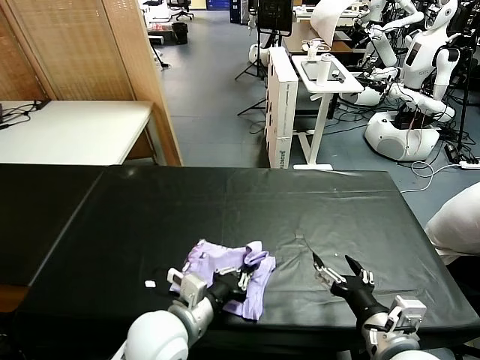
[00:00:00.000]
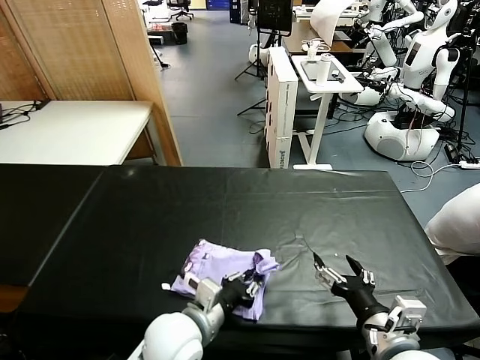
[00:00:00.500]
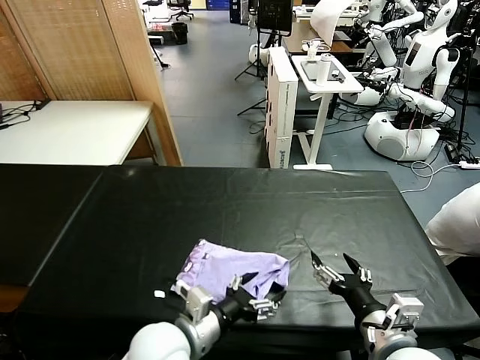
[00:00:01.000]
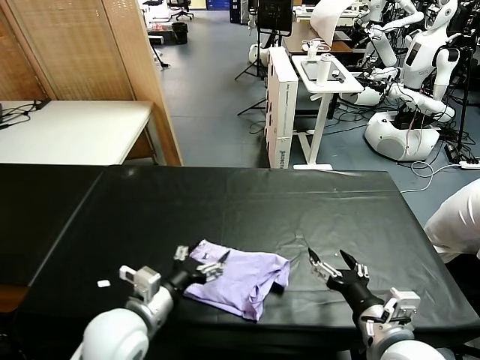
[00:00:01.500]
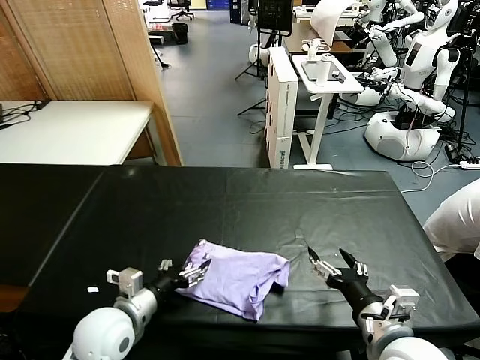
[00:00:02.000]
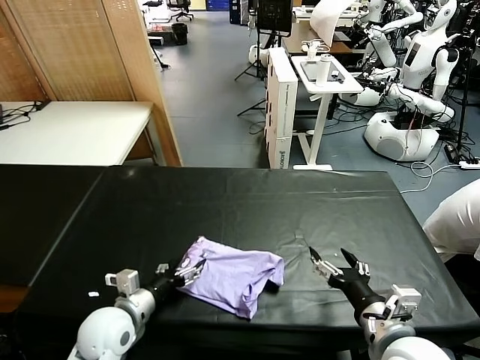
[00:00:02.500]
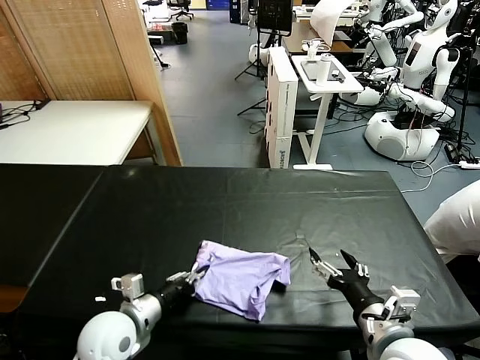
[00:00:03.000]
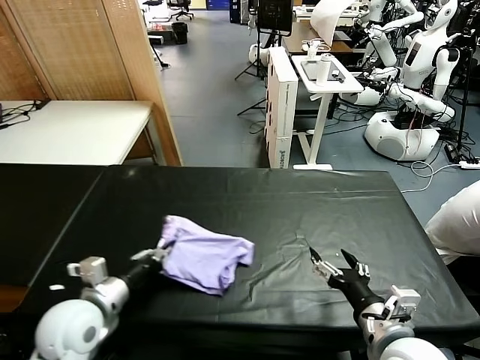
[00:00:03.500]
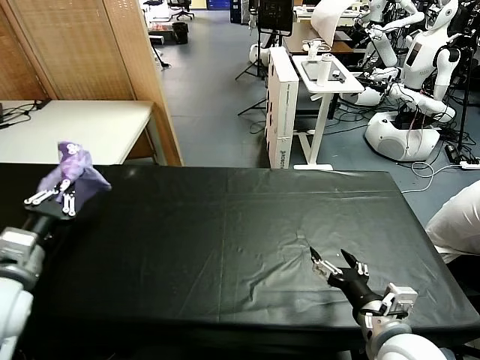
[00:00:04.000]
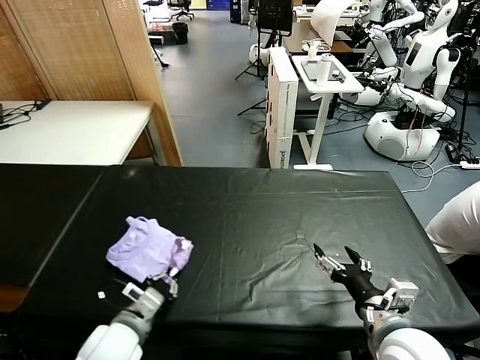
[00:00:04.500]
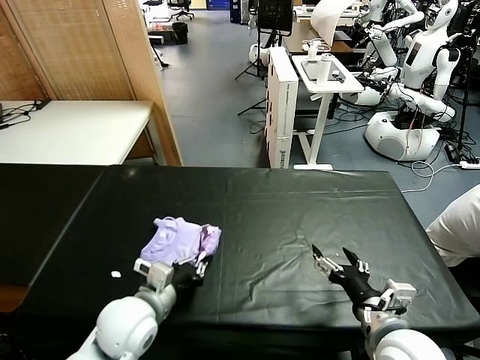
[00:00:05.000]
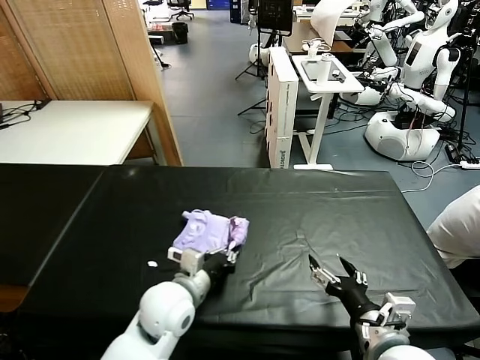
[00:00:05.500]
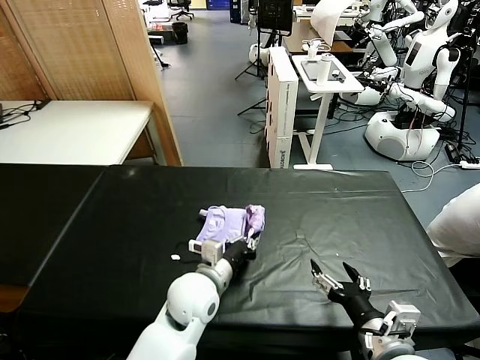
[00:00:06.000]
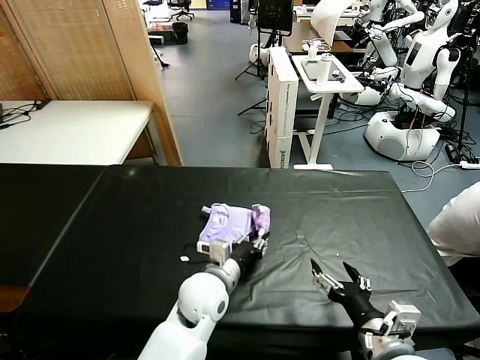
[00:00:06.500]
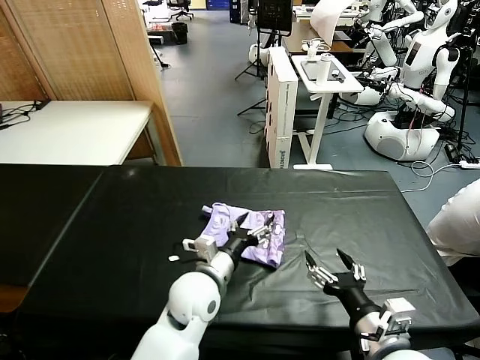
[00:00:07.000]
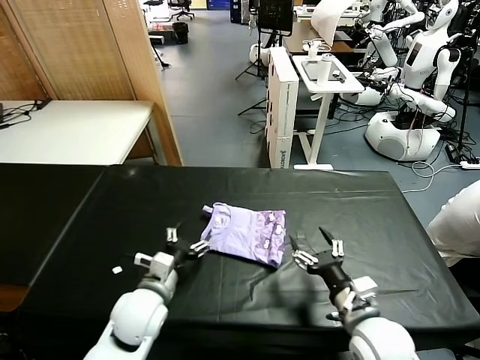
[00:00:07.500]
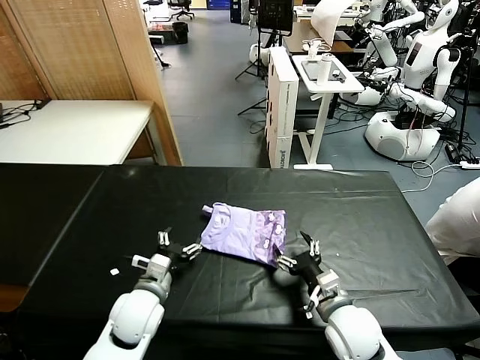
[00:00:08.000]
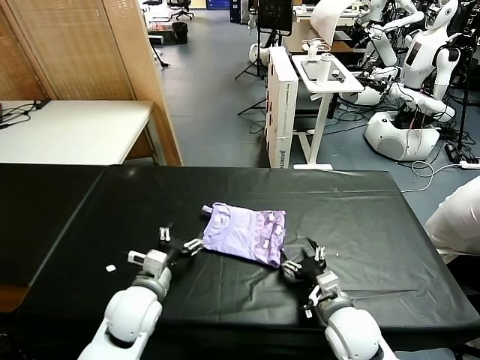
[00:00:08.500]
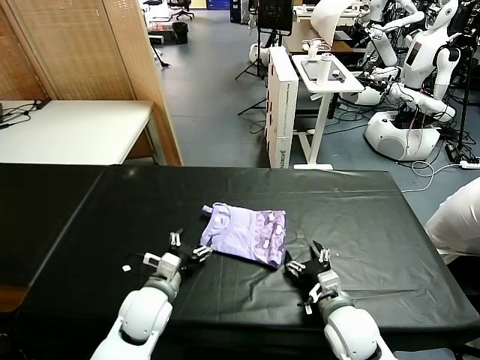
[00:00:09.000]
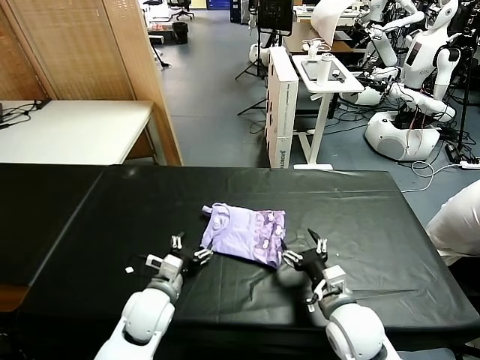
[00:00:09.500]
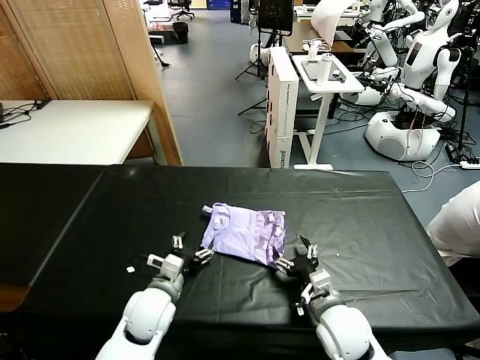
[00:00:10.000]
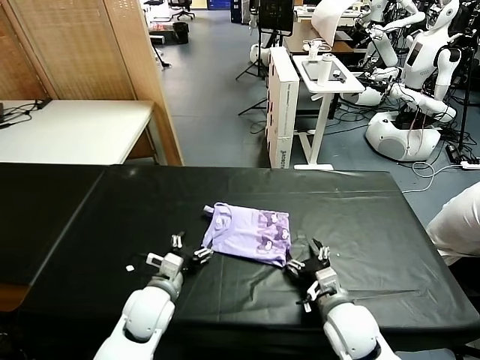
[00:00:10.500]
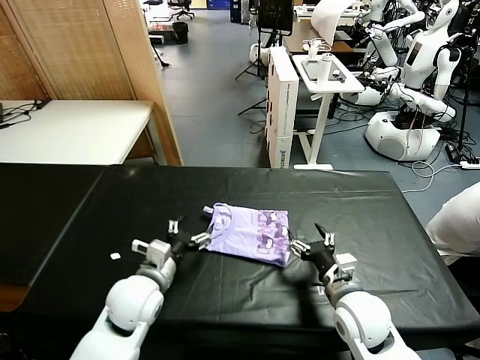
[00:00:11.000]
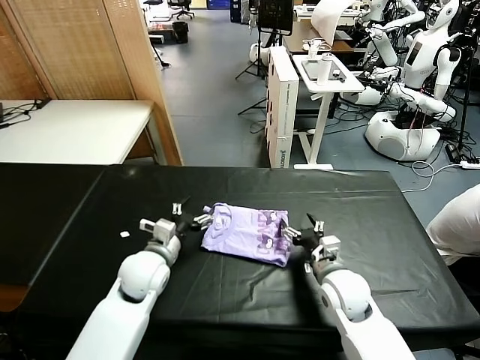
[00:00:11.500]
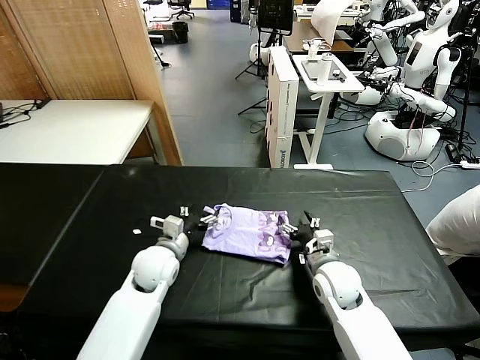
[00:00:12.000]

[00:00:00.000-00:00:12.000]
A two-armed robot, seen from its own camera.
Task of the whole recording: fold and organize the clothes.
00:00:00.000 to 00:00:02.000: The left gripper shifts approximately 10 cm to the left, and opens.
00:00:02.000 to 00:00:04.000: The left gripper travels upward and to the left by approximately 20 cm, and closes.
00:00:04.000 to 00:00:06.000: The left gripper goes about 30 cm to the right and downward.
00:00:06.000 to 00:00:08.000: The right gripper shifts about 15 cm forward and downward, while the left gripper shifts about 10 cm to the left, and opens its fingers.
00:00:08.000 to 00:00:10.000: The grippers move only a little.
00:00:10.000 to 00:00:12.000: Both grippers travel together forward, about 10 cm.

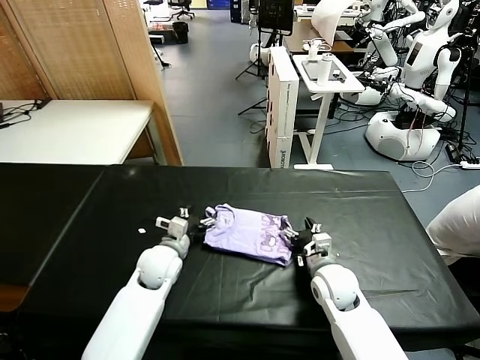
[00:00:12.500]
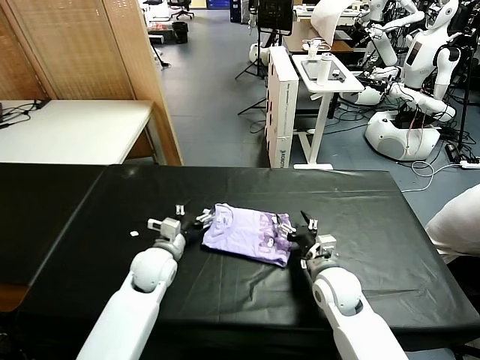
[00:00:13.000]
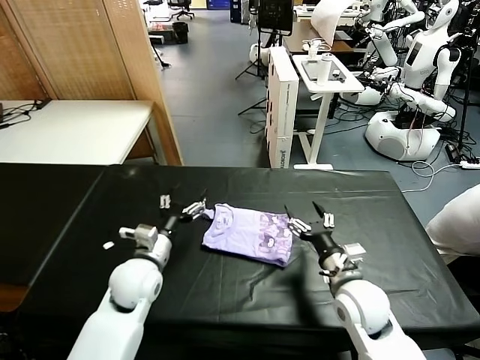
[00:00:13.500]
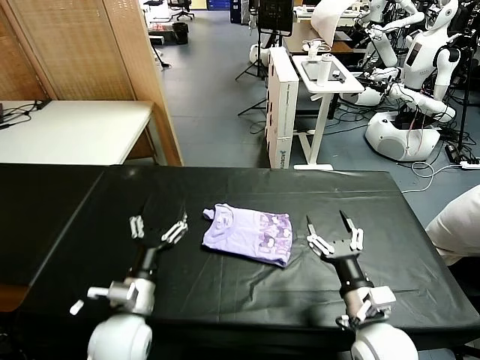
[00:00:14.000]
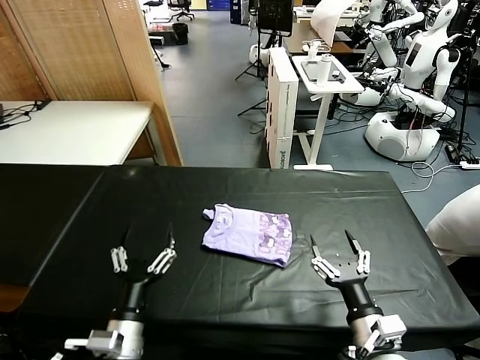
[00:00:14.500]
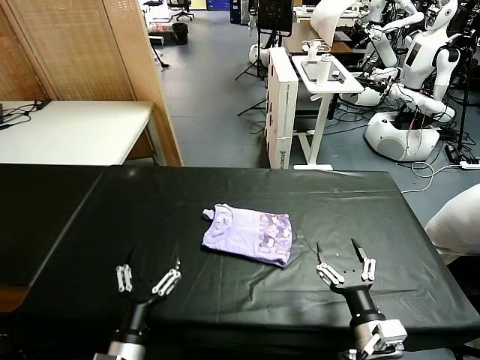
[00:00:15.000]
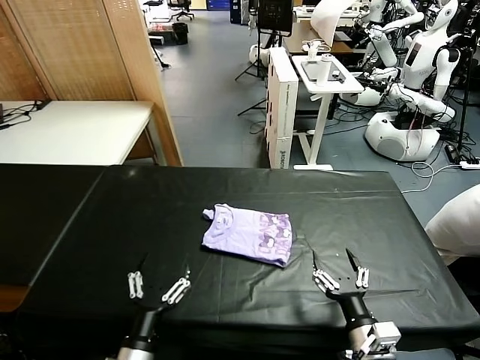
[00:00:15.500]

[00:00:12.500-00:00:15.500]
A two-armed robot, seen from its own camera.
Task of the whole recording: fold and organize the clothes.
00:00:12.500 to 00:00:14.000: The right gripper goes about 15 cm backward and upward. Meanwhile the left gripper goes roughly 15 cm backward.
00:00:14.000 to 00:00:15.500: The right gripper moves backward, approximately 5 cm. Meanwhile the left gripper heads backward, covering roughly 15 cm.

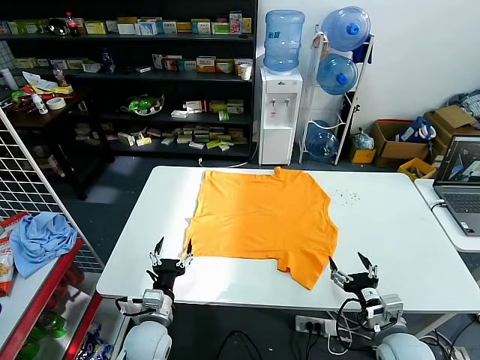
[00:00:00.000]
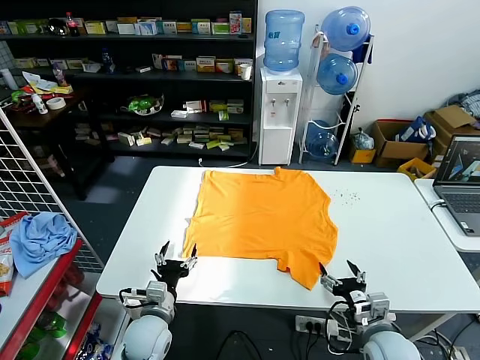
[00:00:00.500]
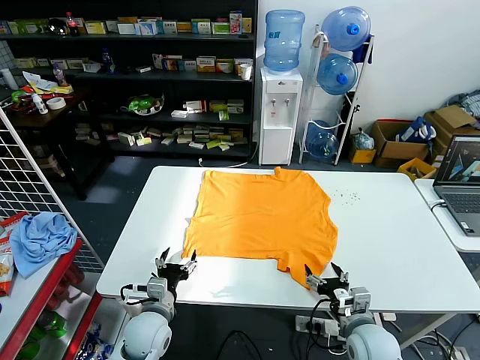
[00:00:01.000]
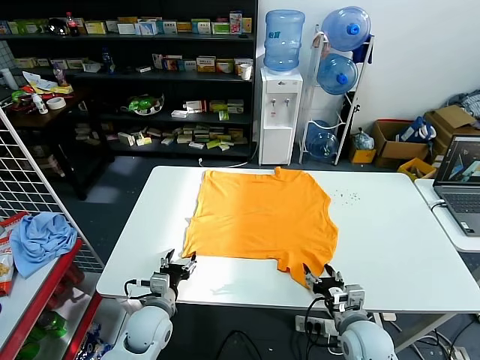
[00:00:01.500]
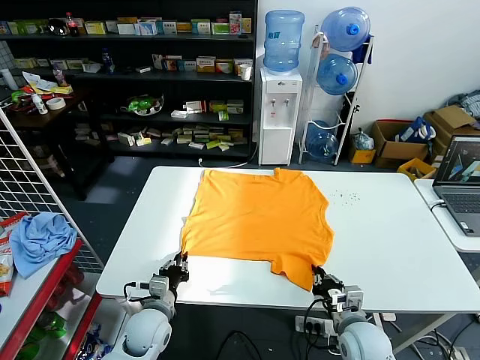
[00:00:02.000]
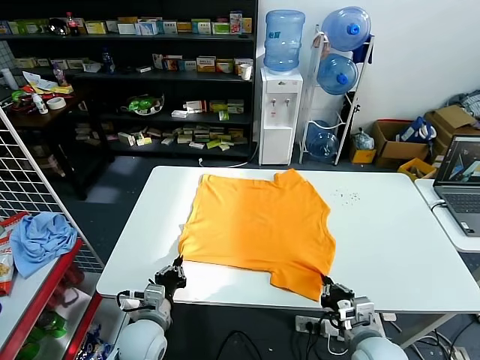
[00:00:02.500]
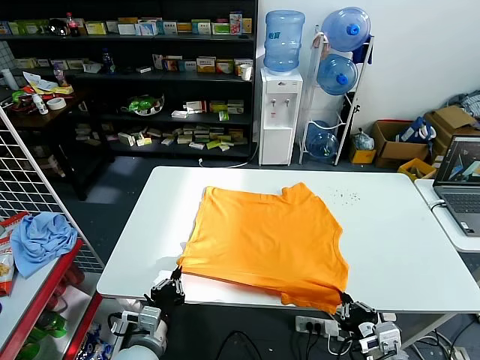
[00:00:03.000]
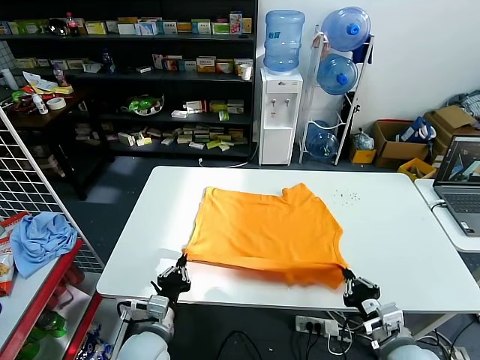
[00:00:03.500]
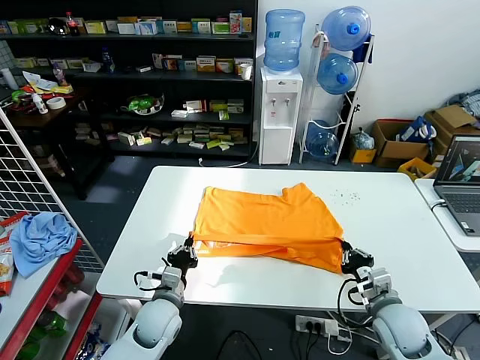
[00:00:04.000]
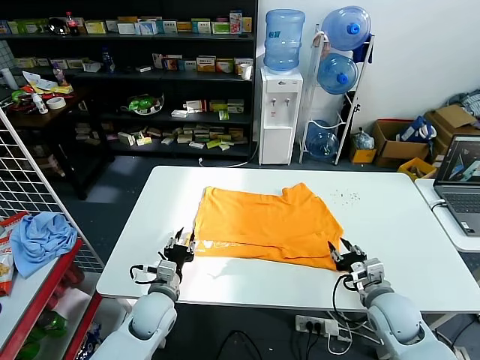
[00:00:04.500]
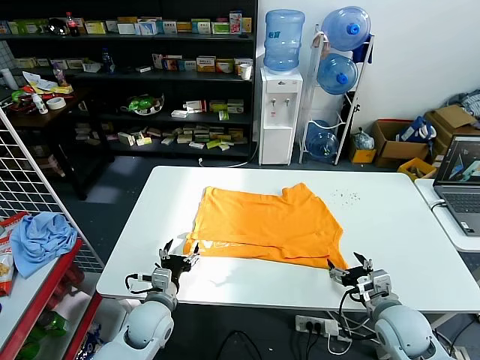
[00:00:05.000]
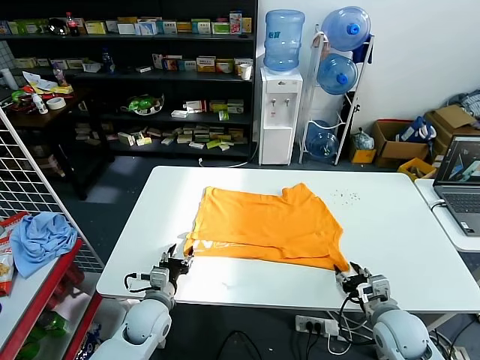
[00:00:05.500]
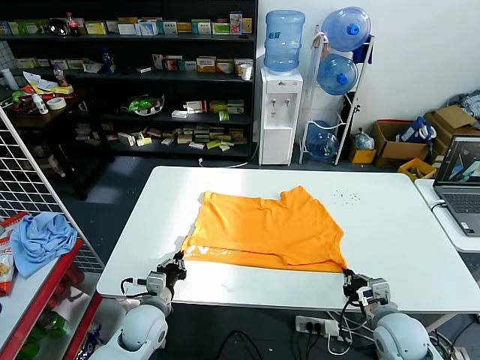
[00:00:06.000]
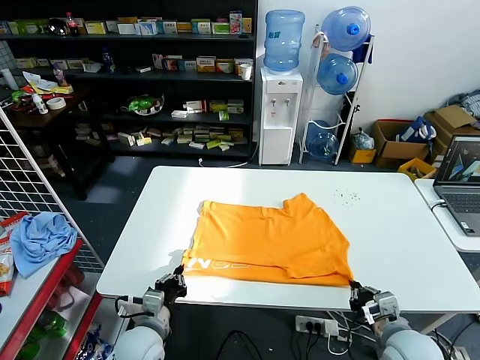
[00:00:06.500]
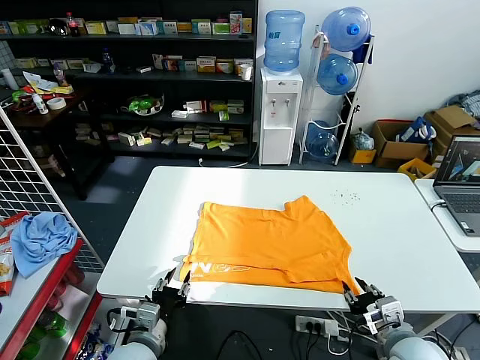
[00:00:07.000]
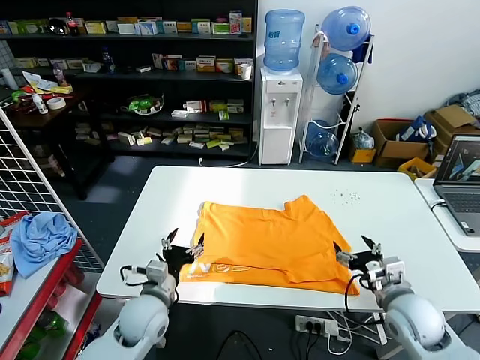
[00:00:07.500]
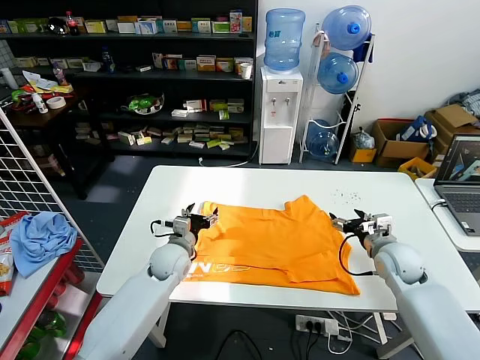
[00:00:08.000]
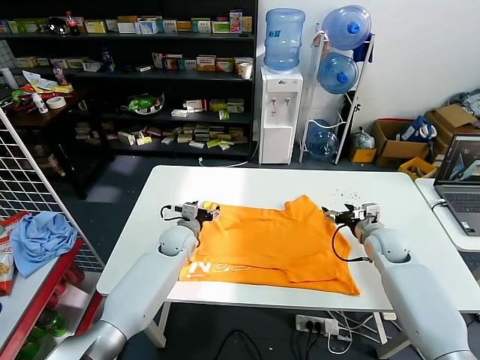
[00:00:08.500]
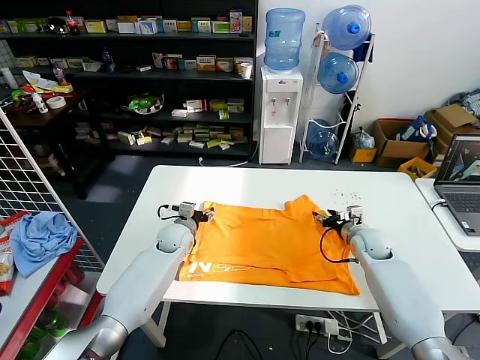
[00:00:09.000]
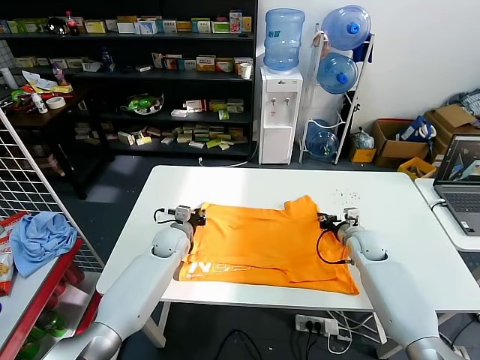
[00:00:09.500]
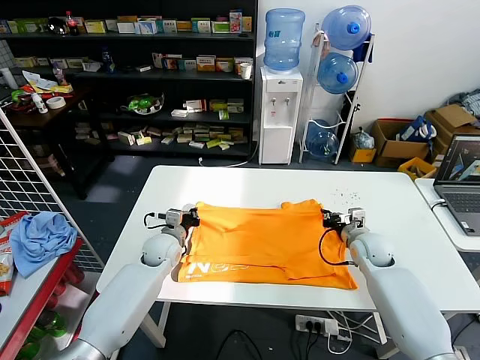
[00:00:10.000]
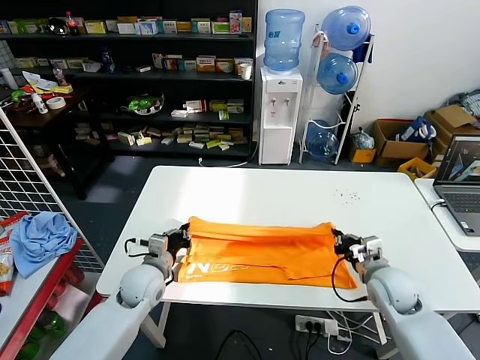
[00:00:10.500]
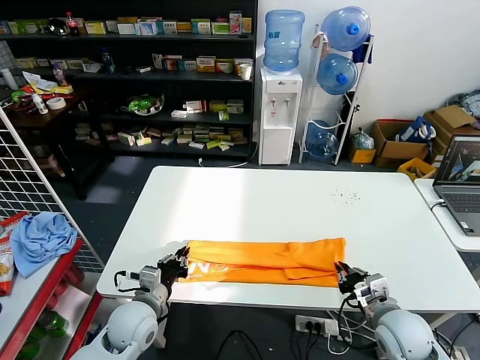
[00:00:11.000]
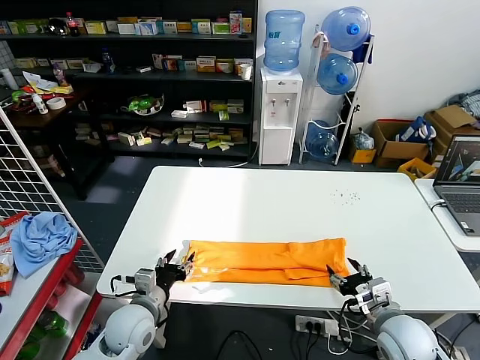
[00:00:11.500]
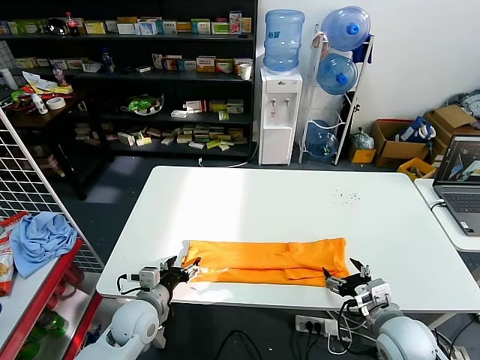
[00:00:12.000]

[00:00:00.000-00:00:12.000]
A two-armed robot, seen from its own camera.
Task of the whole recording: fold and organize the clothes.
Step, 00:00:00.000 to 00:00:02.000: use both grippers simultaneously to clamp the lower edge of the clothing fabric.
Step, 00:00:02.500 to 00:00:04.500: use both grippers to drag the lower edge of the fabric forward and fold it over the upper edge.
Step, 00:00:05.000 to 00:00:07.000: Drag the clothes downward with both gripper.
Step, 00:00:07.500 to 00:00:09.500: use both grippers simultaneously to clamp the upper edge of the clothing fabric.
Step, 00:00:10.000 to 00:00:11.500: use both grippers to drag the upper edge of the fabric backward and fold it over the lower edge.
00:00:02.000 to 00:00:04.000: The left gripper goes backward and returns, about 10 cm each way. Meanwhile the right gripper moves to the right, roughly 5 cm, and reaches some 10 cm backward, then returns.
00:00:04.000 to 00:00:06.000: The right gripper opens, then closes again. The left gripper opens, then closes again.
00:00:06.000 to 00:00:08.000: The left gripper travels forward and upward by some 10 cm, and opens, while the right gripper goes about 15 cm forward, and opens its fingers.
00:00:08.000 to 00:00:10.000: The right gripper closes. Meanwhile the left gripper shifts some 5 cm forward, and closes.
00:00:10.000 to 00:00:12.000: The grippers both shift backward by roughly 20 cm. The right gripper opens; the left gripper opens up.
